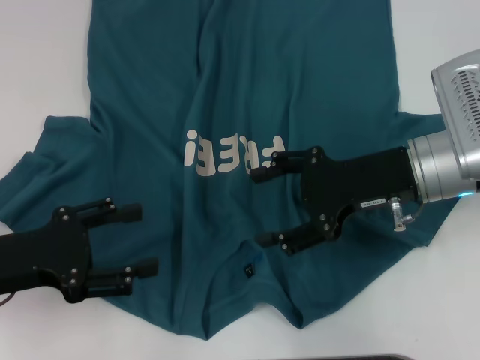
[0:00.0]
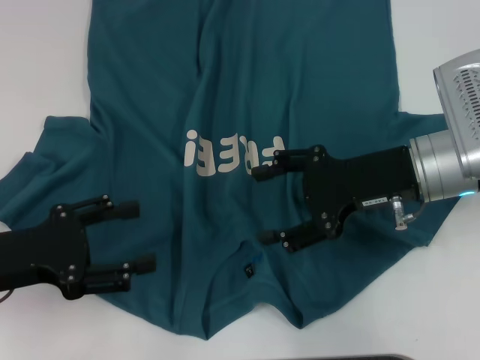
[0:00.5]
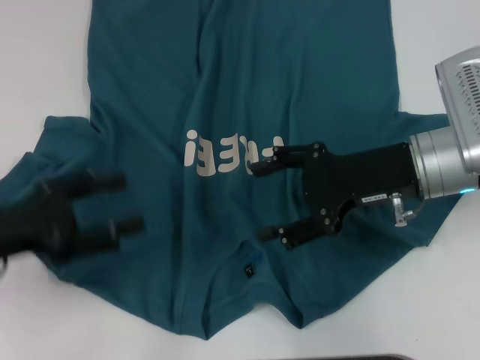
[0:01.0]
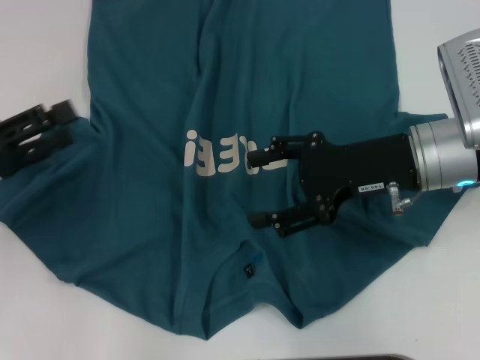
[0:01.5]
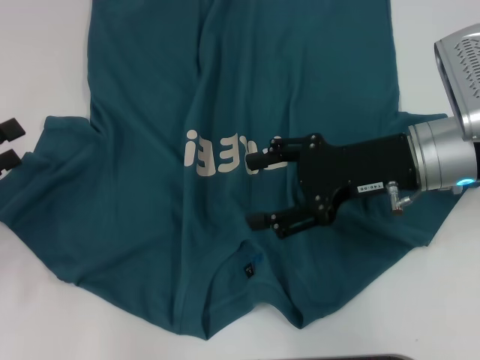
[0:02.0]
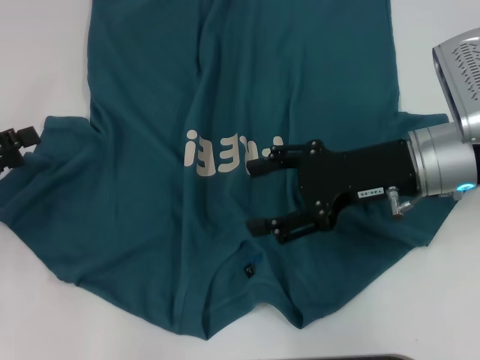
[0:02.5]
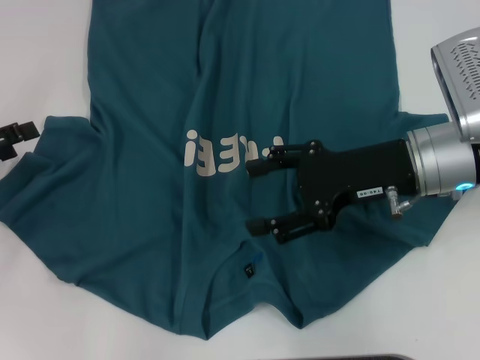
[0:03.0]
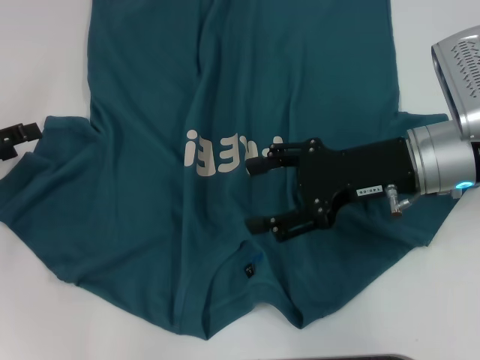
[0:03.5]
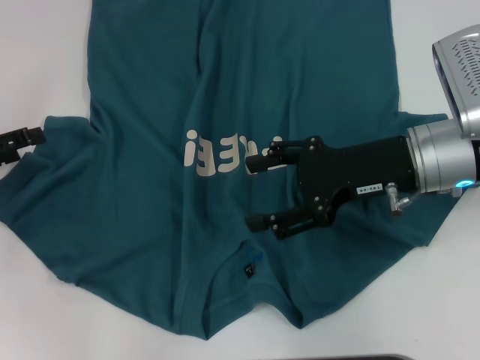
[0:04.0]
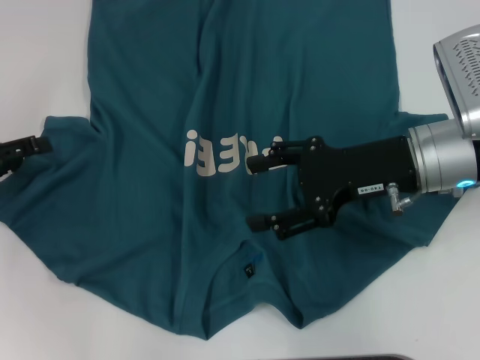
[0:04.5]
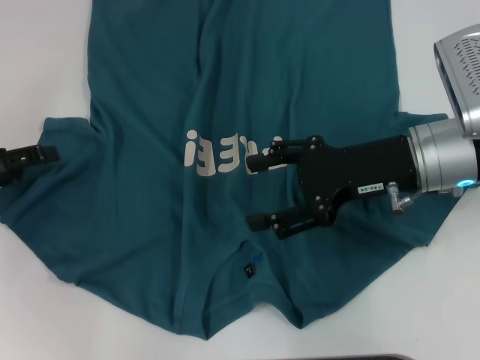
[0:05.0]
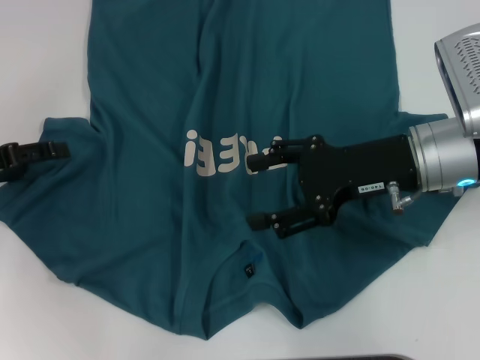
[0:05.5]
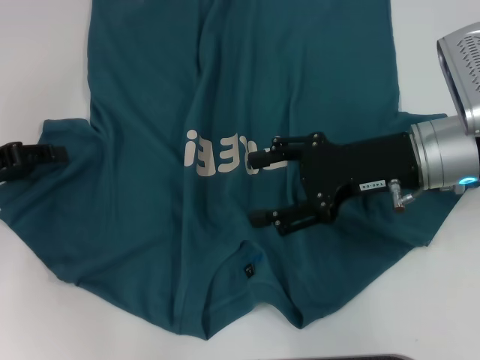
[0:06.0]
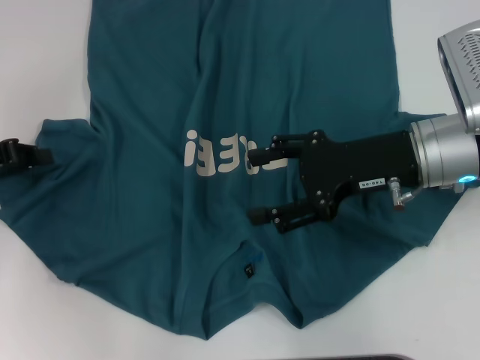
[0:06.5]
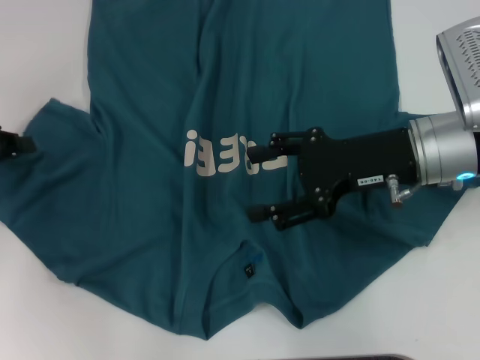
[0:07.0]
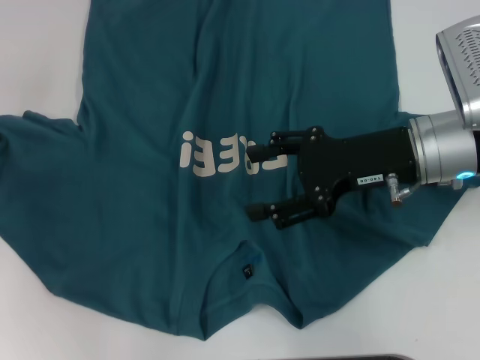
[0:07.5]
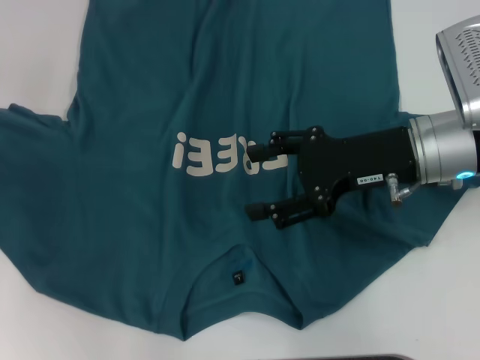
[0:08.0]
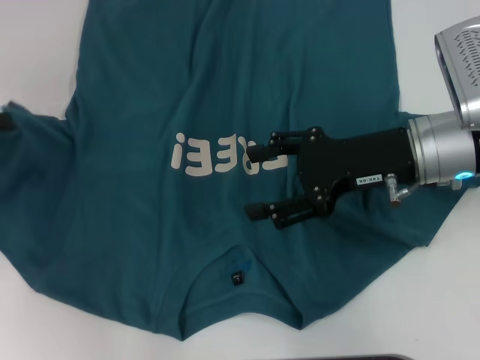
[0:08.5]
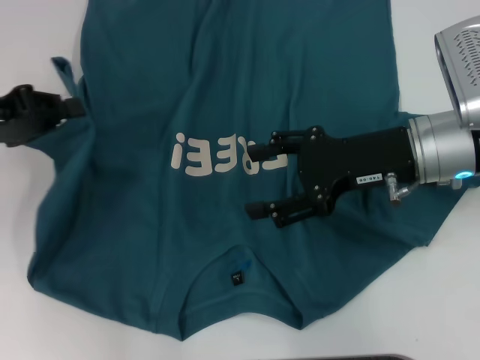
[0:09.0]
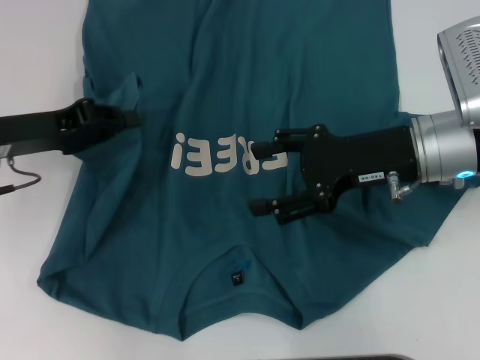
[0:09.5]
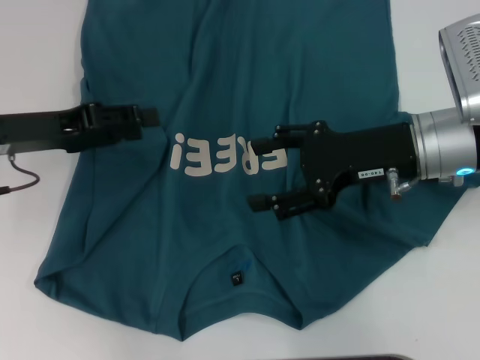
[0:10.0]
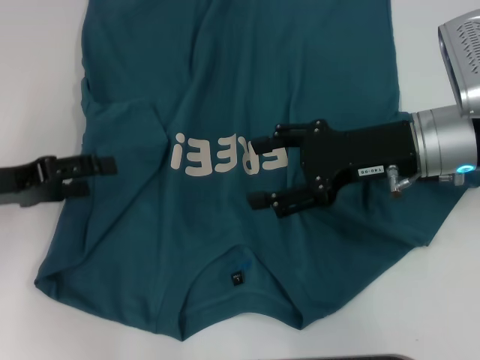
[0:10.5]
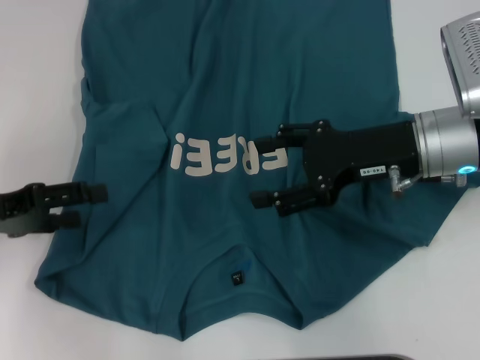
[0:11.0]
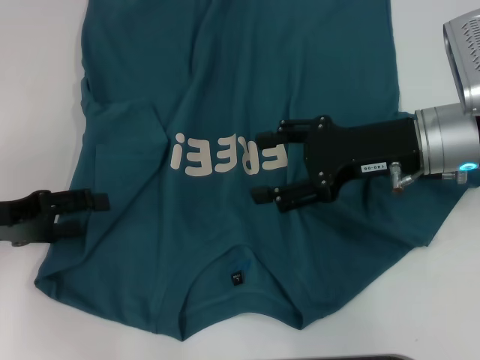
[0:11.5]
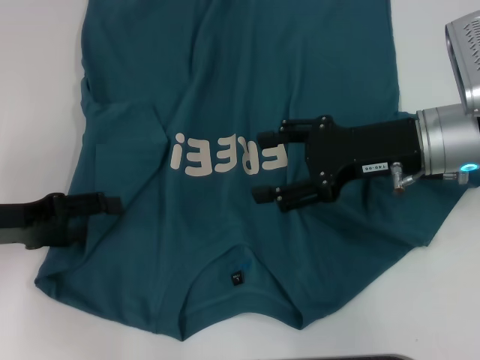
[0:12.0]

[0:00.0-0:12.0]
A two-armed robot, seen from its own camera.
0:00.0 to 0:02.0: The left gripper travels to the left by roughly 10 cm.
0:02.0 to 0:04.0: The left gripper goes about 5 cm forward.
0:04.0 to 0:06.0: The grippers move only a little.
0:06.0 to 0:08.0: The left gripper shifts by approximately 5 cm, and closes.
0:08.0 to 0:10.0: The left gripper heads to the right, covering roughly 10 cm, and opens.
0:10.0 to 0:12.0: The left gripper heads backward, covering some 5 cm, and opens.

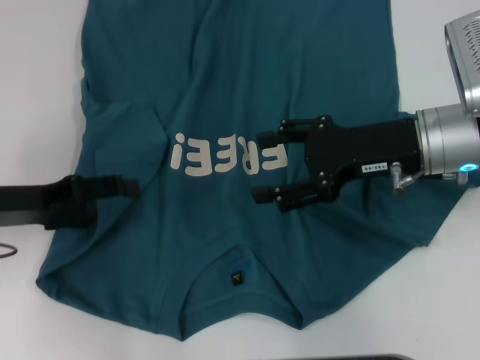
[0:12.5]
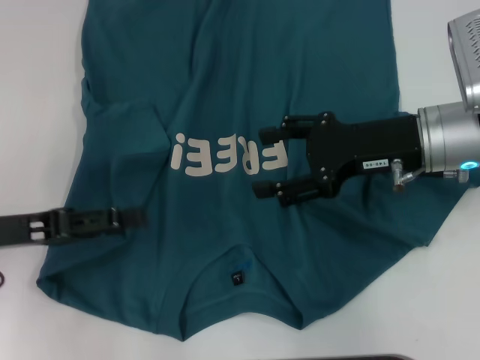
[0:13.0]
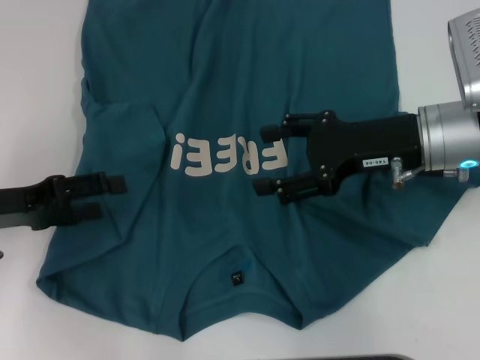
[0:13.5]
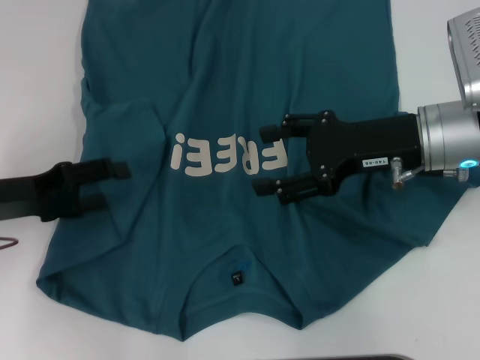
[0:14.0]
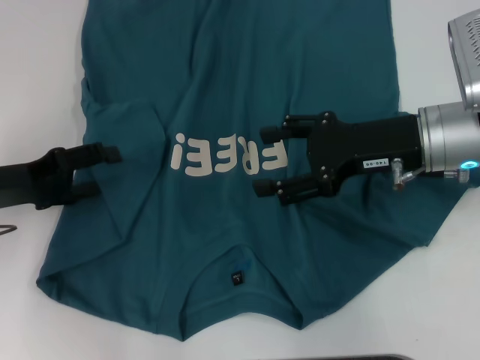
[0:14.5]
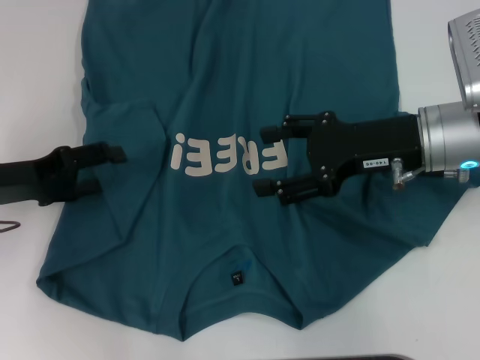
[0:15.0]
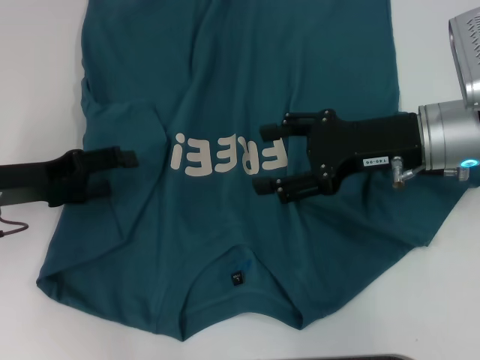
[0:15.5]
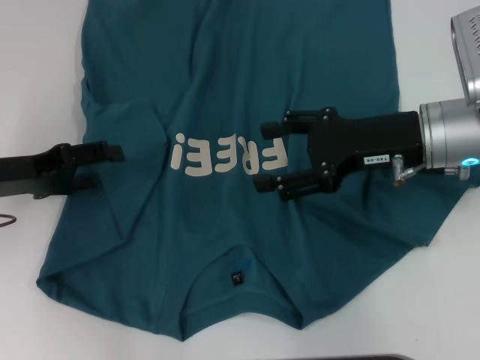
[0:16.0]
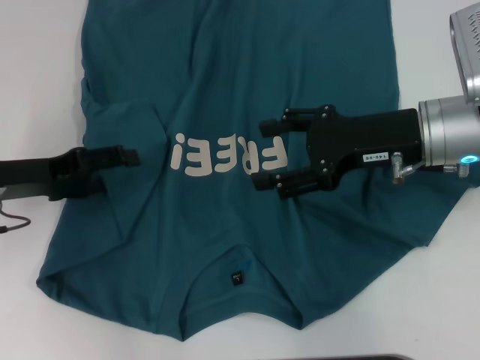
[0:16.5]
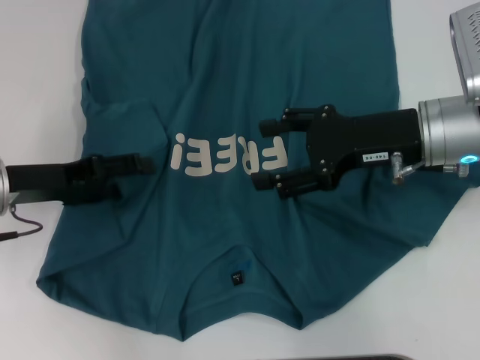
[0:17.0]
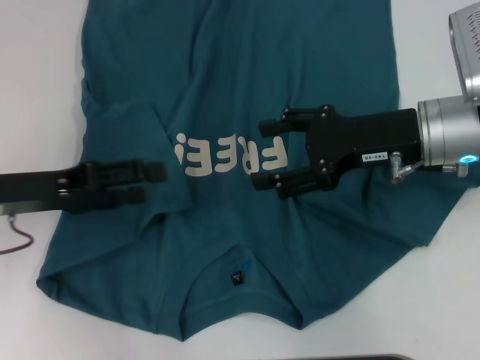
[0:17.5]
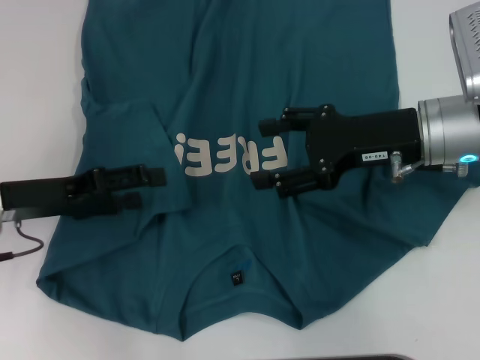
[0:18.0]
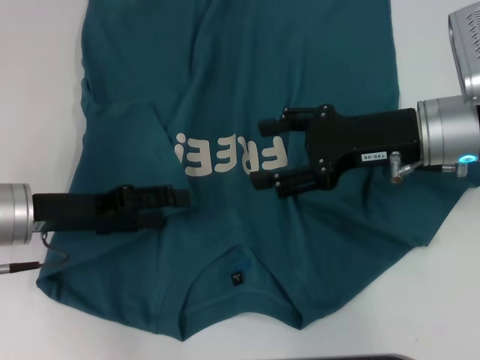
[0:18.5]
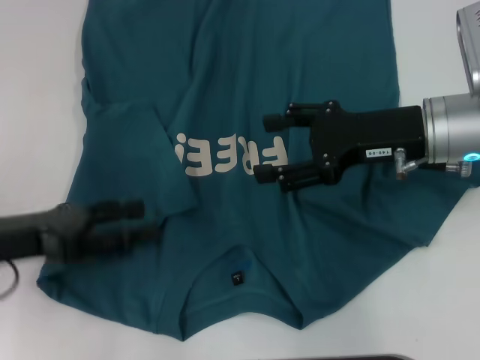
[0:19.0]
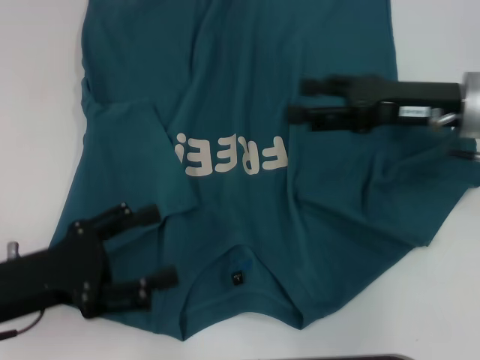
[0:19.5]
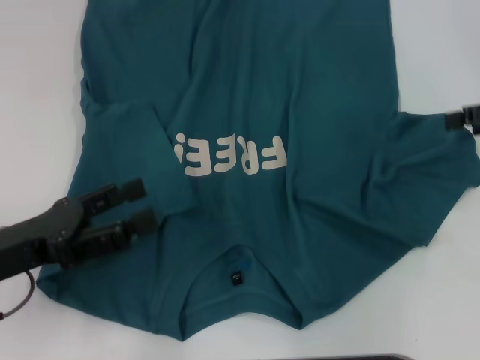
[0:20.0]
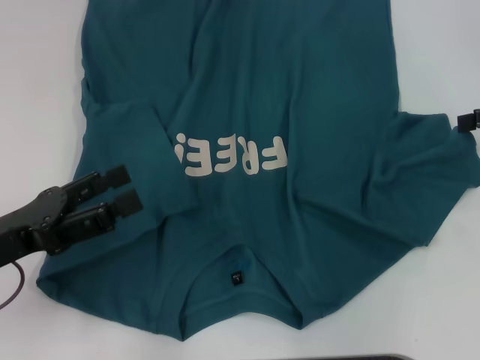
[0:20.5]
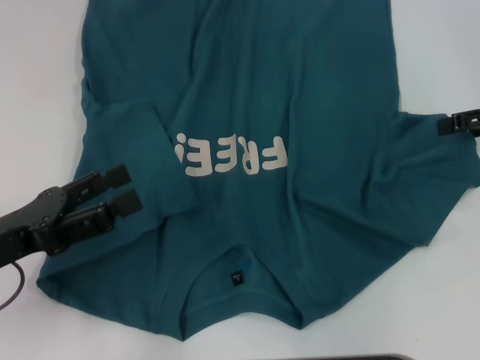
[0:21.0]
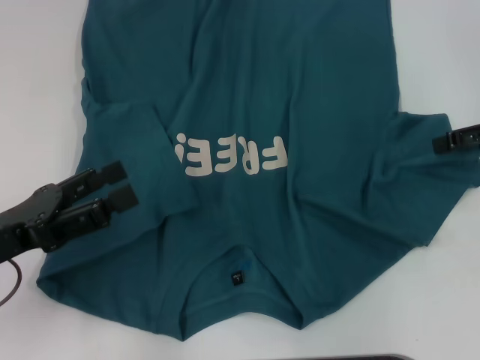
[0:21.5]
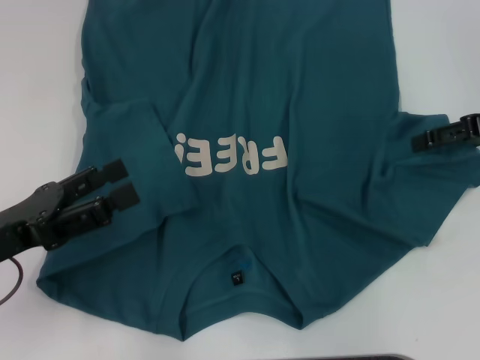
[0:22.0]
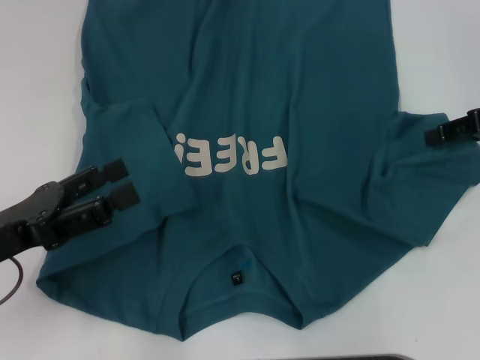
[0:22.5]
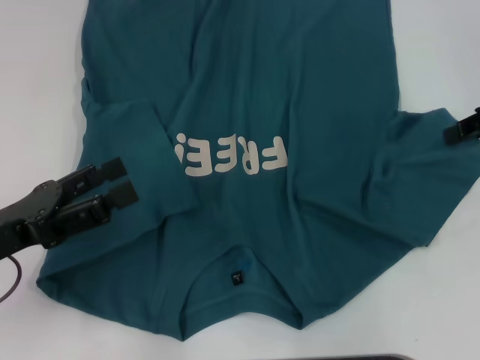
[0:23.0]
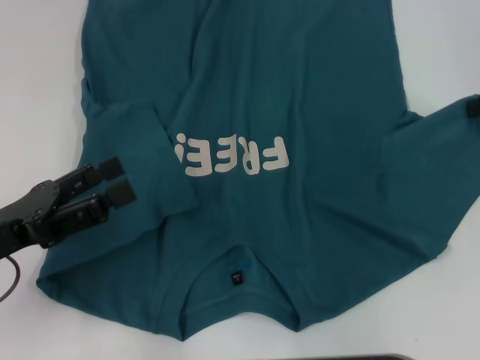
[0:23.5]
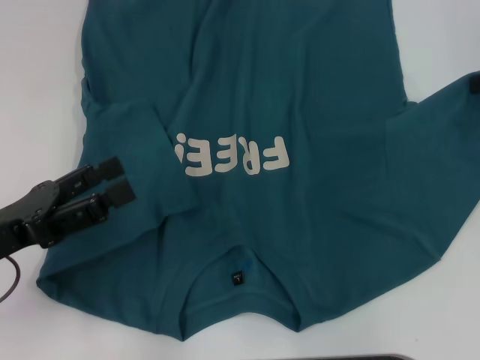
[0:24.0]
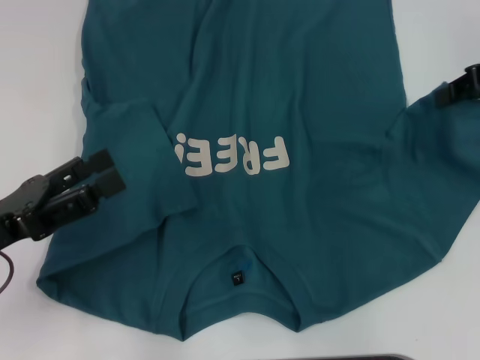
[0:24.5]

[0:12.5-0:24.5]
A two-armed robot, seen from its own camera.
Step, 0:12.5 to 0:19.0: Fold the bottom left sleeve with your left hand.
0:12.5 to 0:16.5: The grippers move only a little.
0:18.5 to 0:20.5: The right gripper moves to the right, roughly 20 cm; the left gripper shifts approximately 5 cm backward.
0:20.5 to 0:22.5: The grippers stay close to where they were, moving slightly.
0:22.5 to 0:24.5: The right gripper closes up.

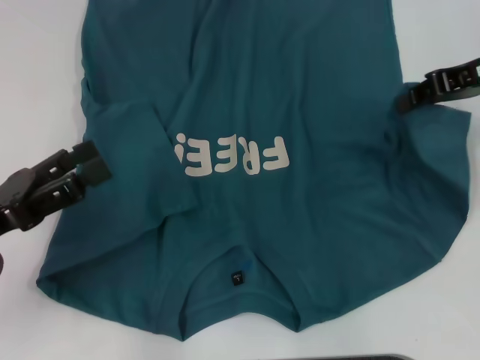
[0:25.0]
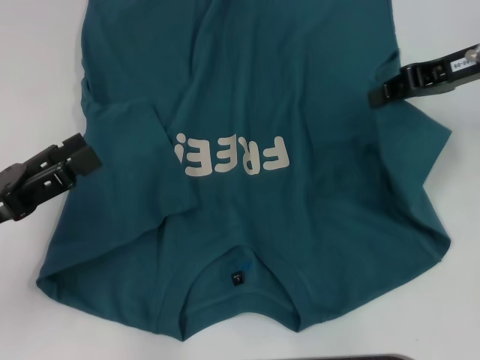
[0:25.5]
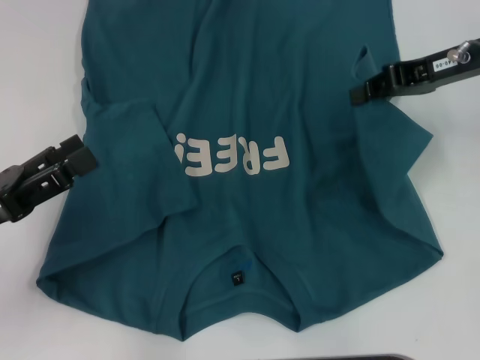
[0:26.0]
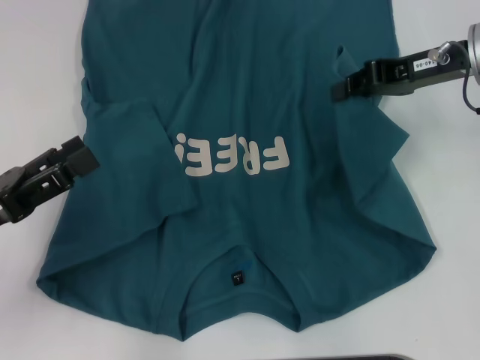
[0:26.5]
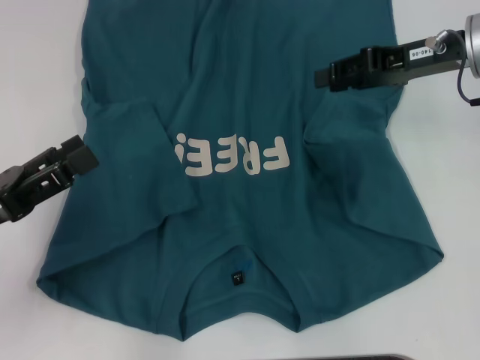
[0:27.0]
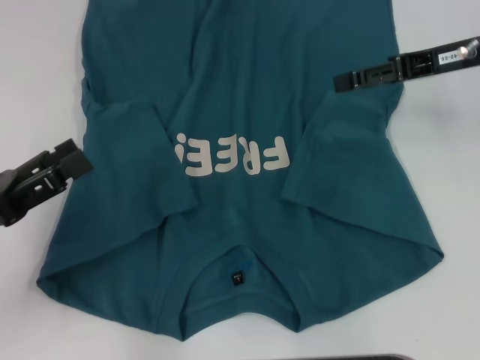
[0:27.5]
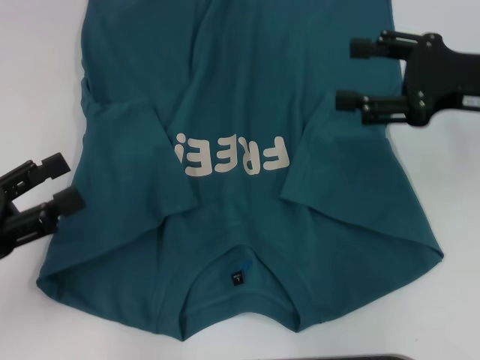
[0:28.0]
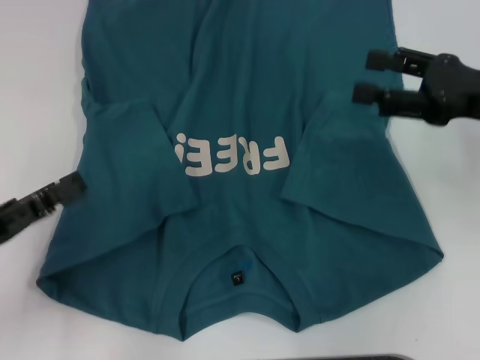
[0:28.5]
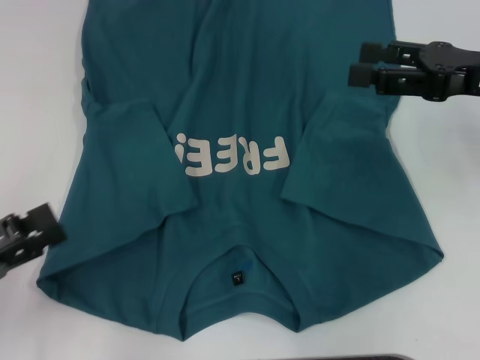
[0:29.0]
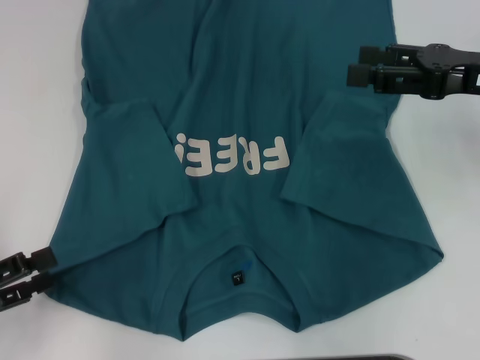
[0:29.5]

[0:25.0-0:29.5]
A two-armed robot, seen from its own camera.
Step, 0:25.0 to 0:27.5: Fold the bottom right sleeve to the right.
0:25.0 to 0:27.0: The grippers stay close to where they were, moving slightly.
0:27.0 to 0:29.5: The left gripper moves backward and to the left, approximately 10 cm, while the right gripper goes approximately 5 cm backward, and opens its fingers.
